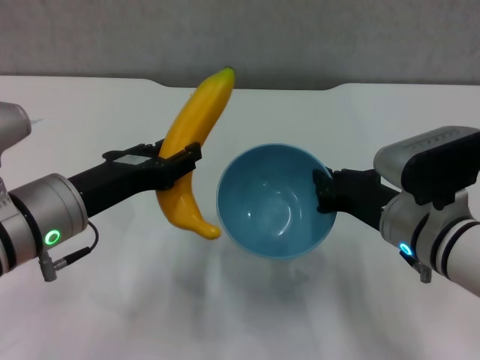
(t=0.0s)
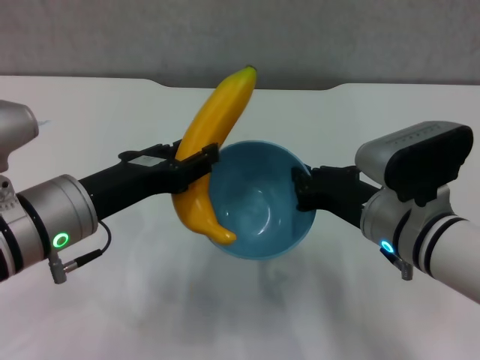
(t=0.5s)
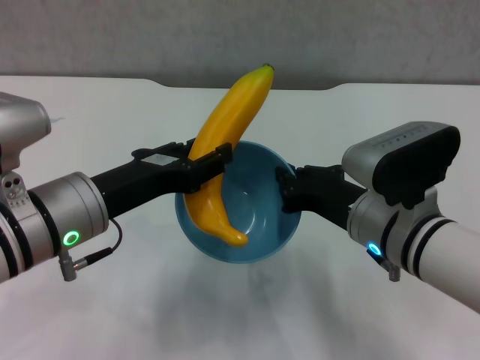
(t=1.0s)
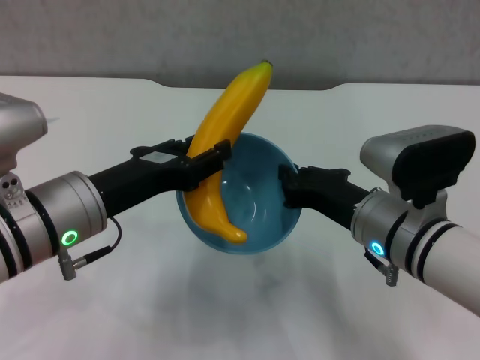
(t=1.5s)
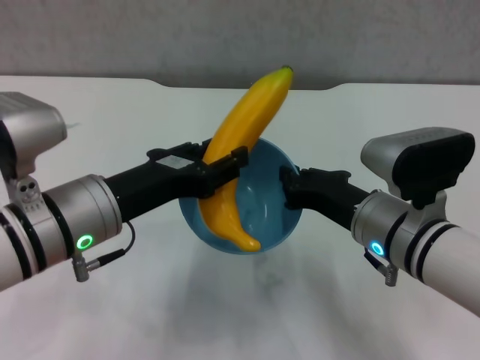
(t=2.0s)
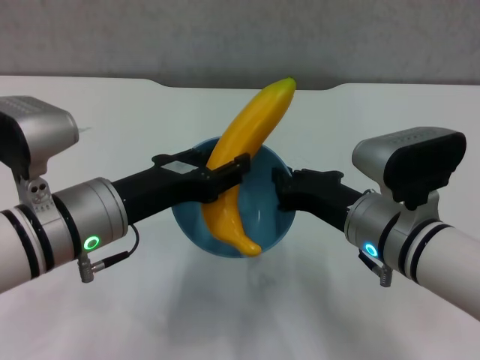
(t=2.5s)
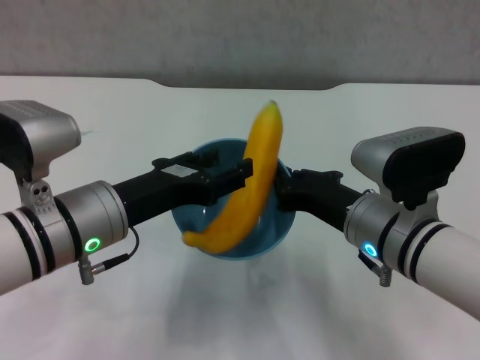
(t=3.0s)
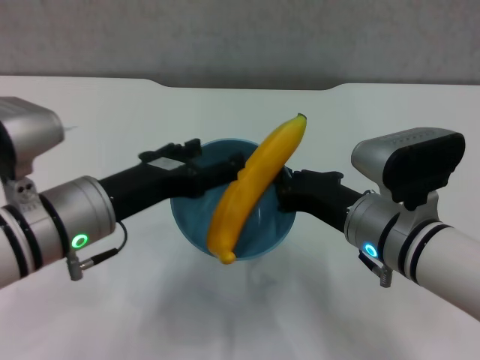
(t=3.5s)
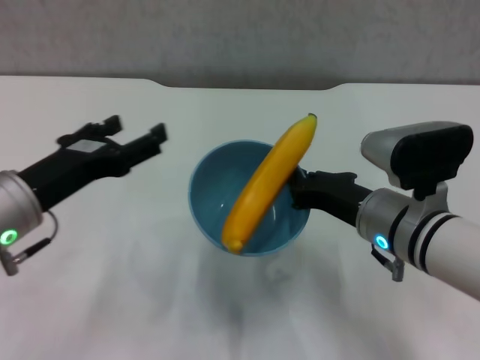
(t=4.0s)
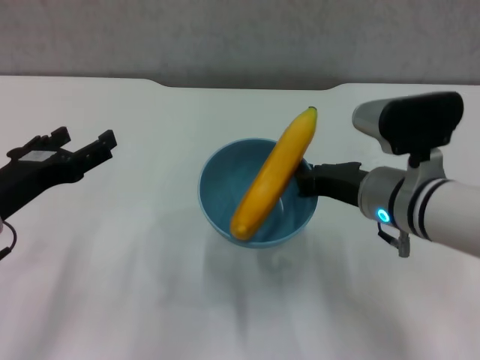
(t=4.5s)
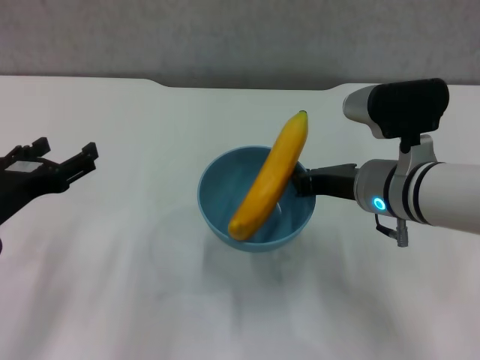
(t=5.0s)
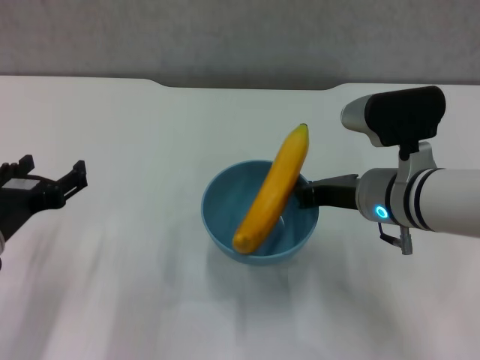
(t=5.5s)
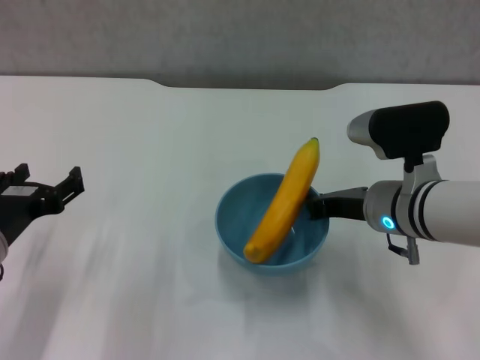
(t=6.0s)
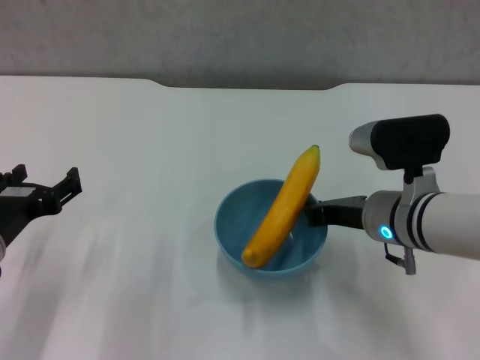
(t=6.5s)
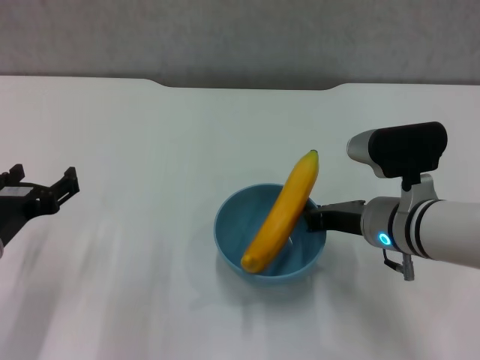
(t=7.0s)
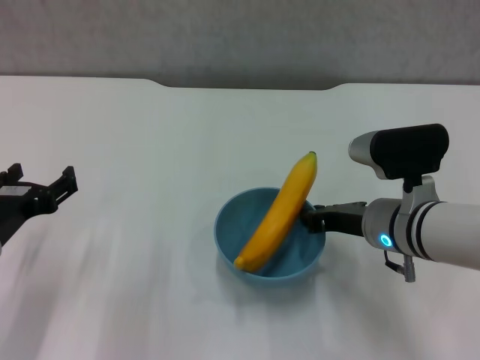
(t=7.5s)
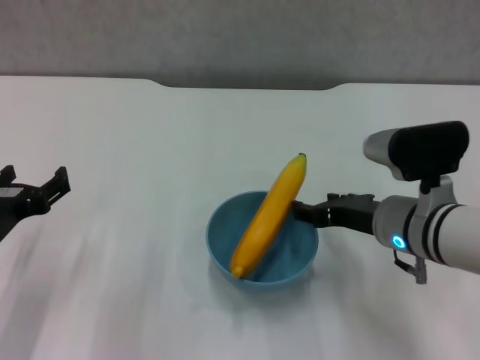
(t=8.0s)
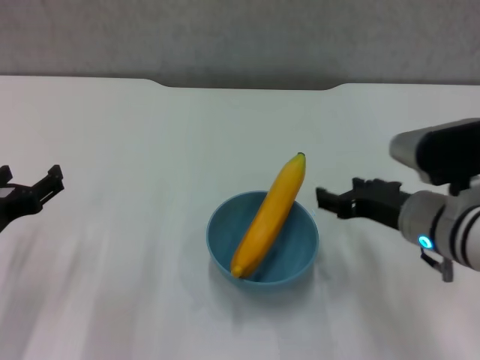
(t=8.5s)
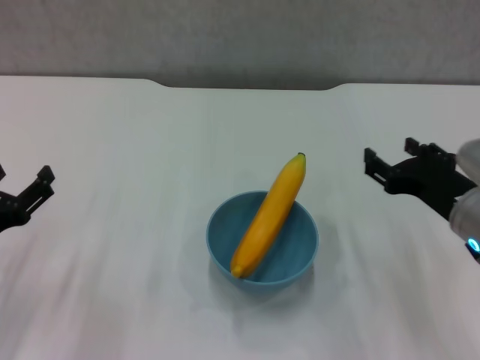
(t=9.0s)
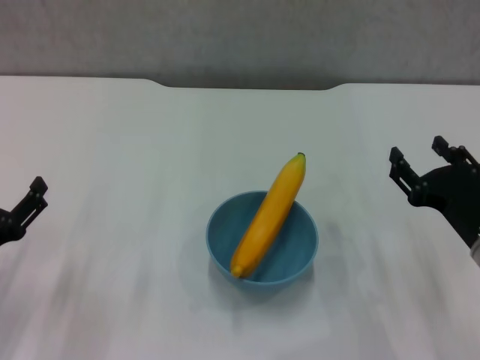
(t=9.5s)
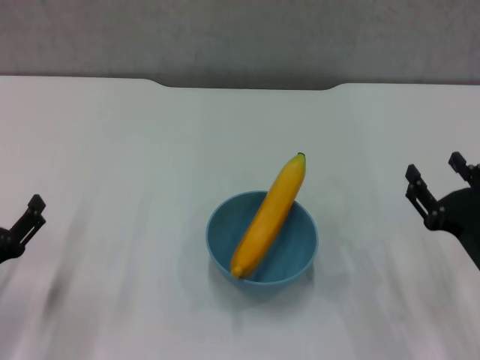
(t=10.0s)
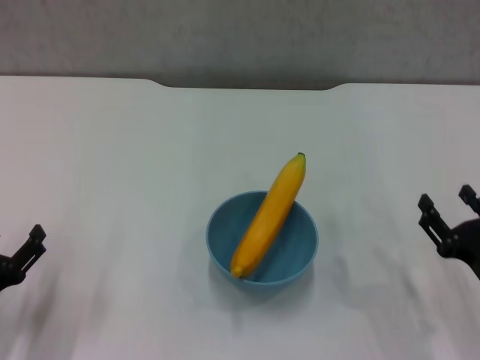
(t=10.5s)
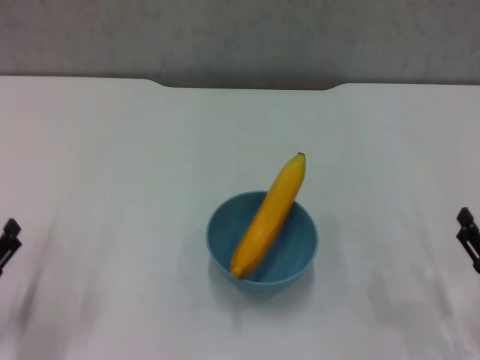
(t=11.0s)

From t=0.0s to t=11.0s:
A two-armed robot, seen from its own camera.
Step, from t=0.0s to t=3.0s: Place the banana in the blue bowl with left gripper.
Step, from t=3.5s to t=8.0s: Place the bowl on the table with right gripper.
From t=2.0s to t=3.5s: The left gripper opens.
From t=3.5s to t=5.5s: The left gripper heads to the left, covering roughly 10 cm.
From t=5.5s to t=7.5s: The grippers move only a little.
From t=7.5s to t=9.0s: The right gripper travels to the right by approximately 5 cm, and opens.
From t=9.0s to t=11.0s: The left gripper moves downward, approximately 5 cm; the right gripper travels backward, downward and to the right by approximately 15 cm.
